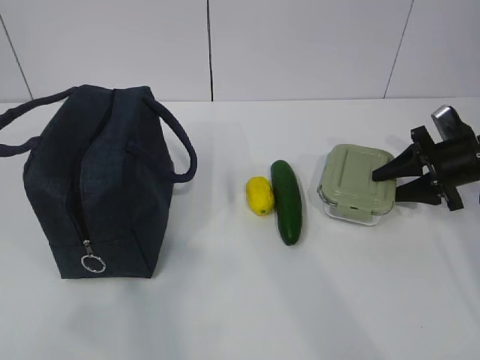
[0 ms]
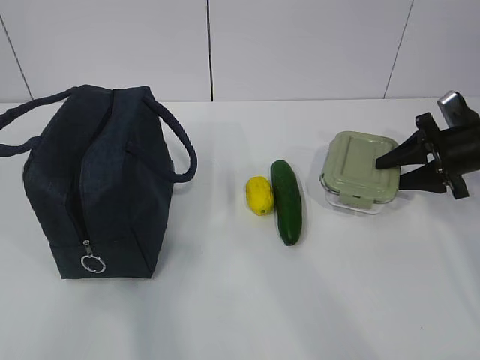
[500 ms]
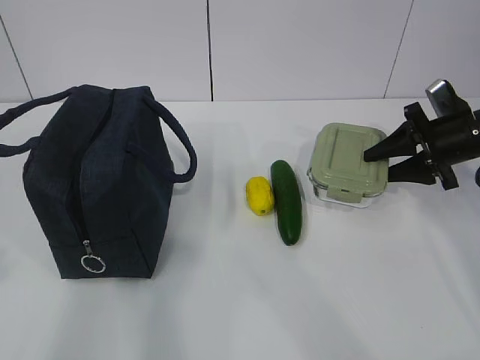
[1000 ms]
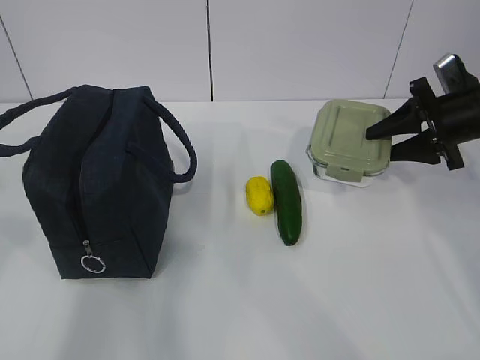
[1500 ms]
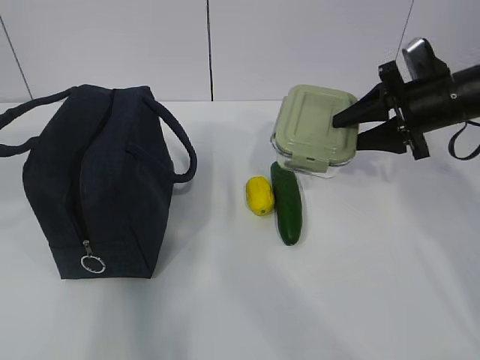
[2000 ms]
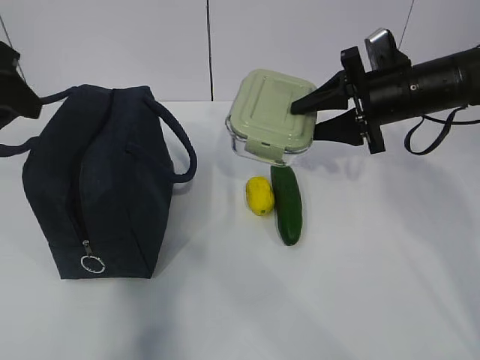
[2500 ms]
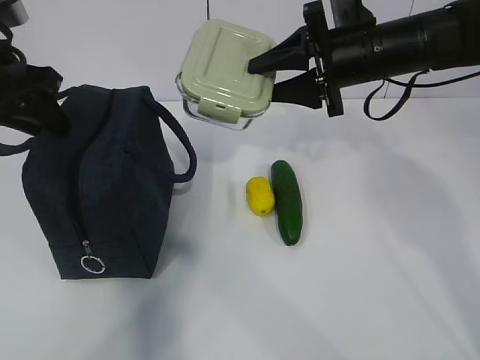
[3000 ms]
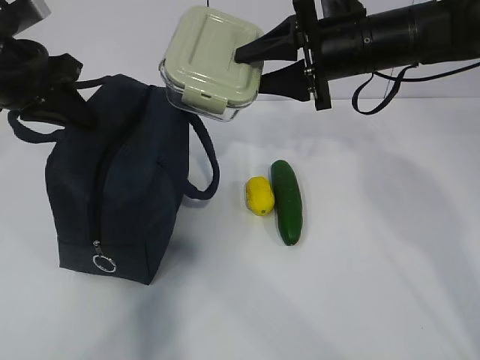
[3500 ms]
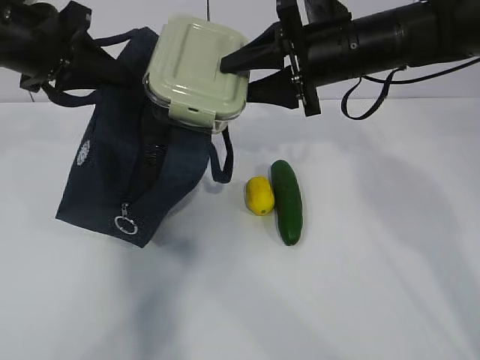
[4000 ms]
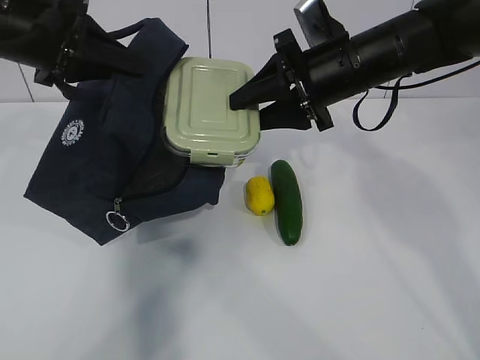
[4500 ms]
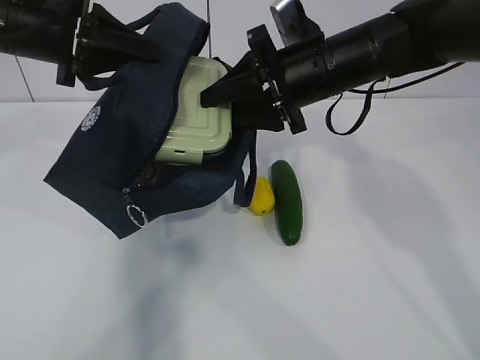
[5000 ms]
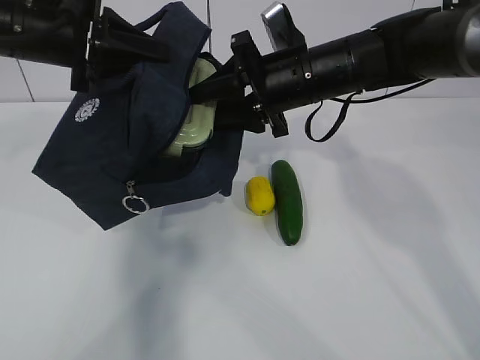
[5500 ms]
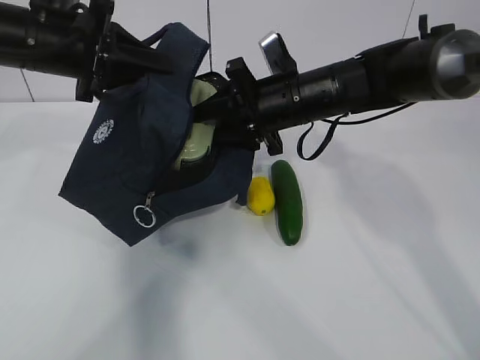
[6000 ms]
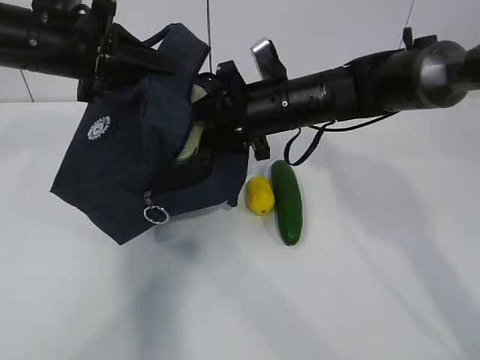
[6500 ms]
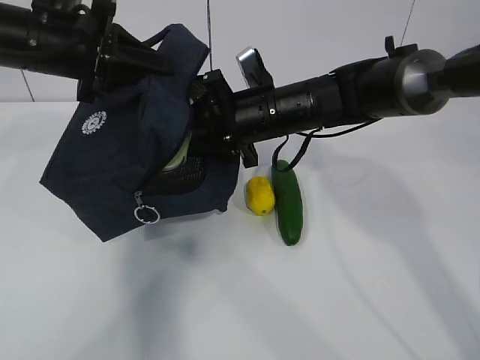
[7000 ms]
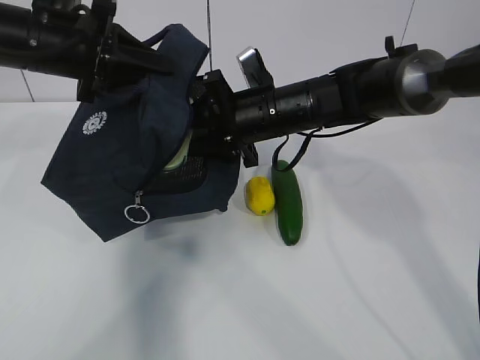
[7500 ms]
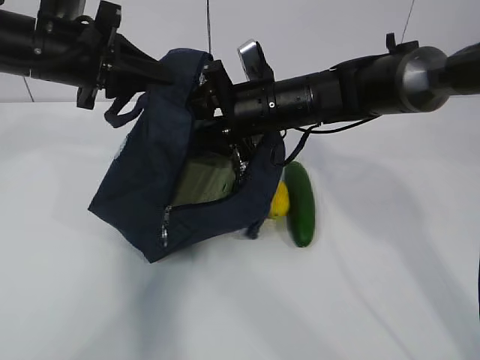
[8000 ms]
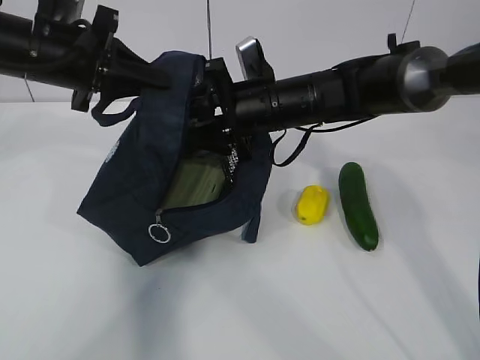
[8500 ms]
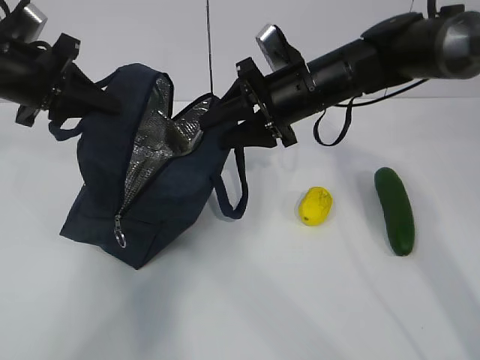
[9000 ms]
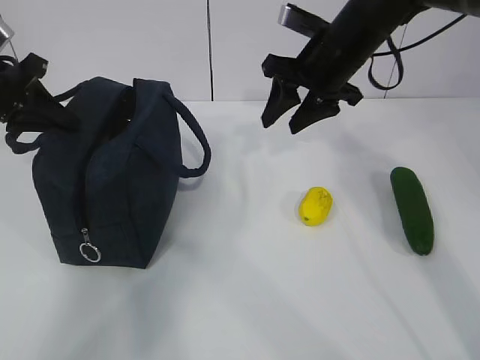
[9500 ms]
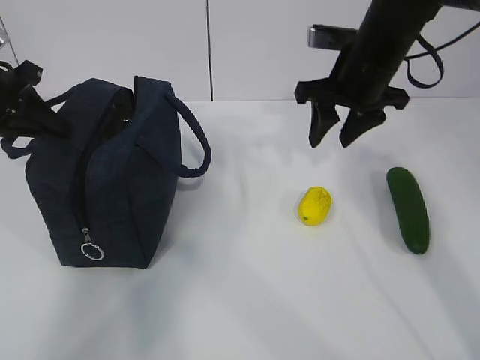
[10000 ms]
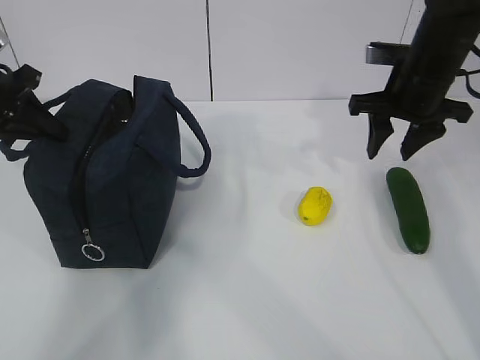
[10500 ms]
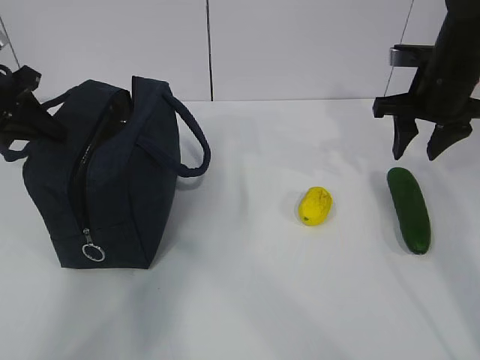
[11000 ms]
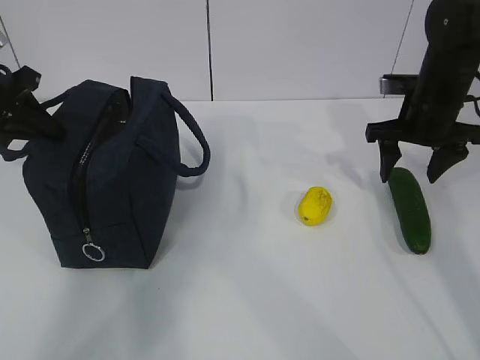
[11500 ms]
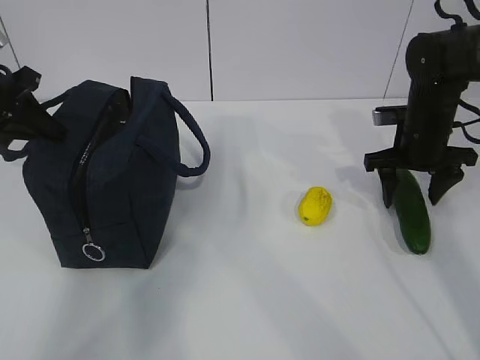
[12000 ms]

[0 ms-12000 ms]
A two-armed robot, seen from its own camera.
Step, 2000 ms to 5500 ms: Grab the cucumber with your right hand.
Step, 6000 ms to 8000 ms: Place it into the bag with your right hand.
0 ms to 2000 ms: The left gripper shifts roughly 20 cm forward; the right gripper travels upward and to the left by about 10 cm.
2000 ms to 4000 ms: The right gripper is displaced to the left and upward by roughly 15 cm. The left gripper heads forward, covering some 15 cm, and closes up.
4000 ms to 6000 ms: The right gripper heads downward, covering roughly 5 cm.
6000 ms to 8000 ms: The grippers move only a little.
8000 ms to 10000 ms: The left gripper heads to the left, covering some 10 cm. Meanwhile the right gripper is displaced to the right and upward by some 10 cm.
10000 ms to 12000 ms: The right gripper is displaced downward and to the right by approximately 15 cm.

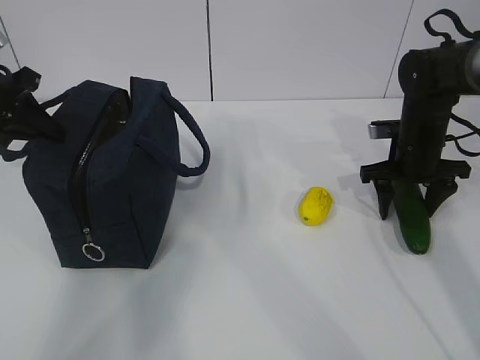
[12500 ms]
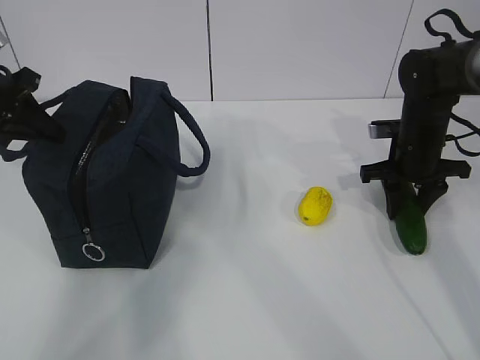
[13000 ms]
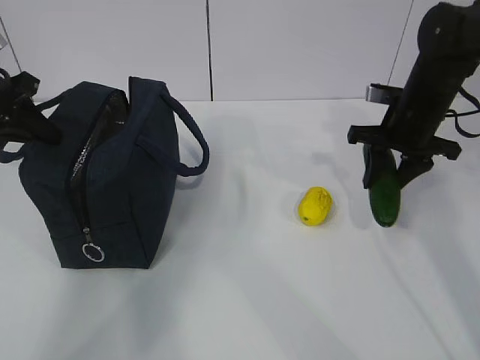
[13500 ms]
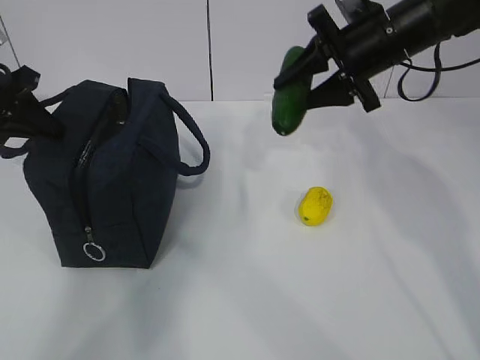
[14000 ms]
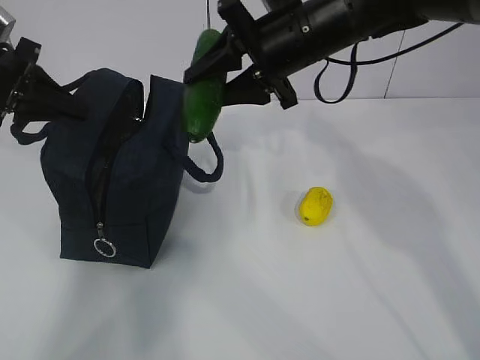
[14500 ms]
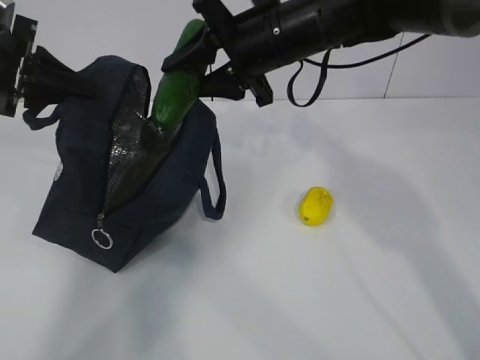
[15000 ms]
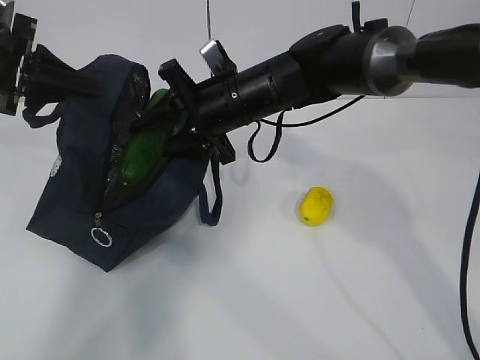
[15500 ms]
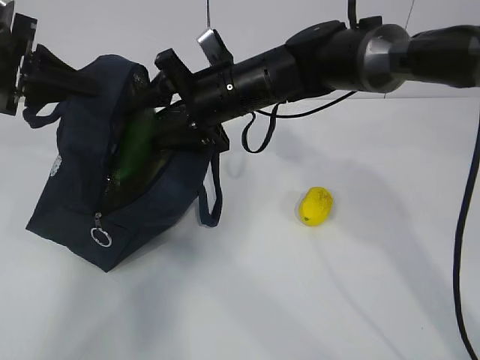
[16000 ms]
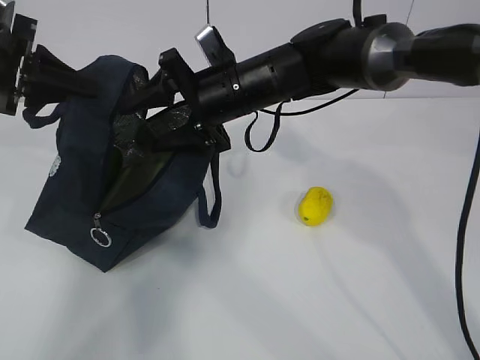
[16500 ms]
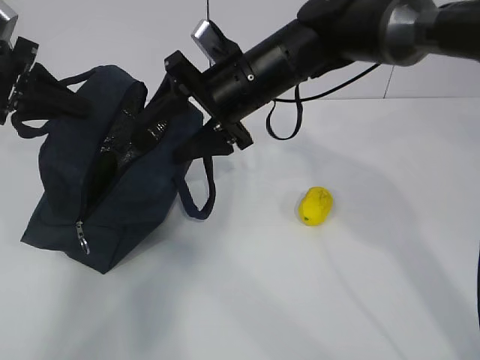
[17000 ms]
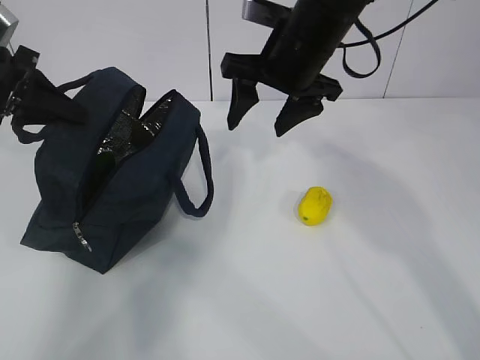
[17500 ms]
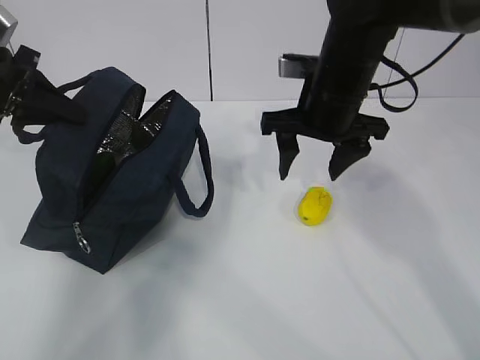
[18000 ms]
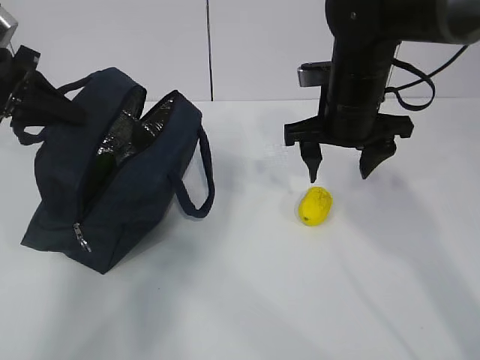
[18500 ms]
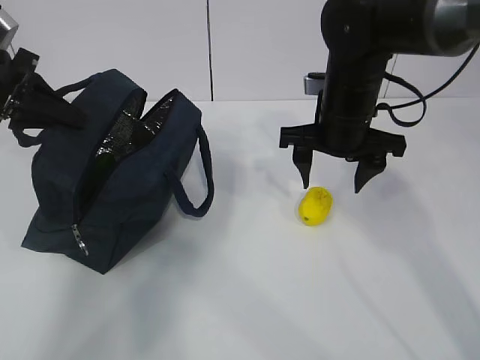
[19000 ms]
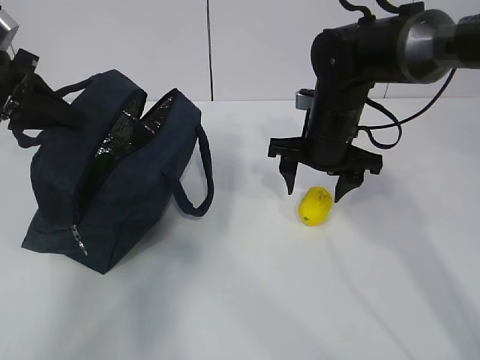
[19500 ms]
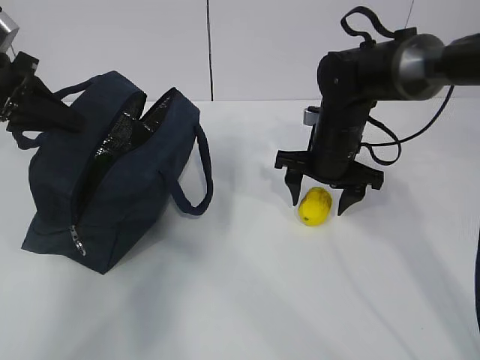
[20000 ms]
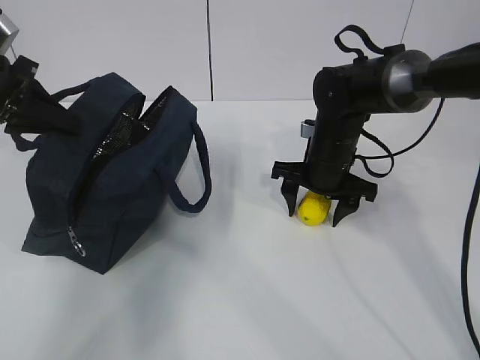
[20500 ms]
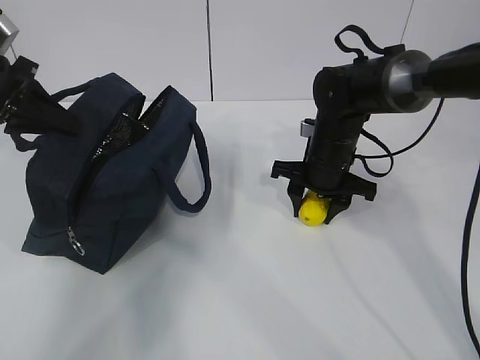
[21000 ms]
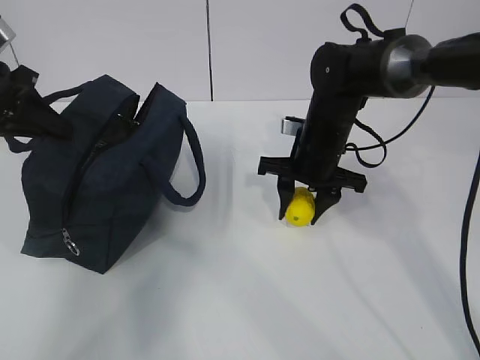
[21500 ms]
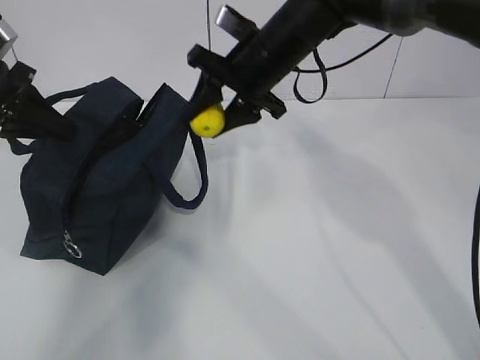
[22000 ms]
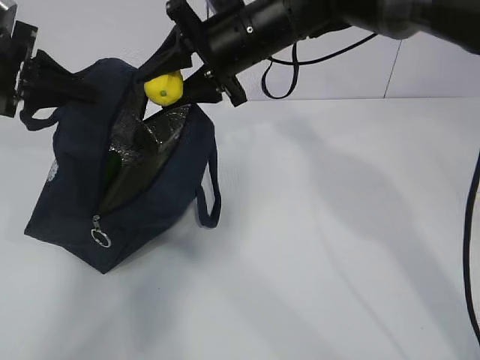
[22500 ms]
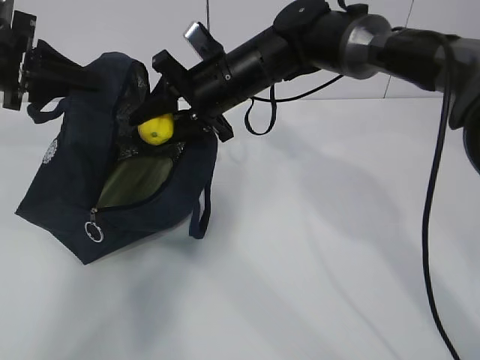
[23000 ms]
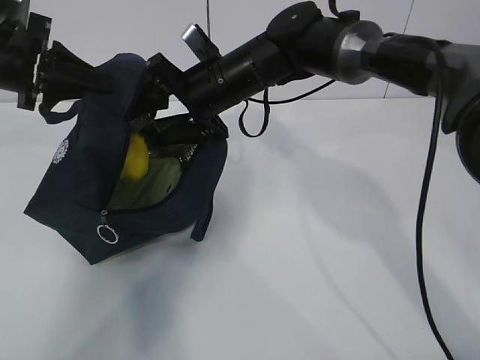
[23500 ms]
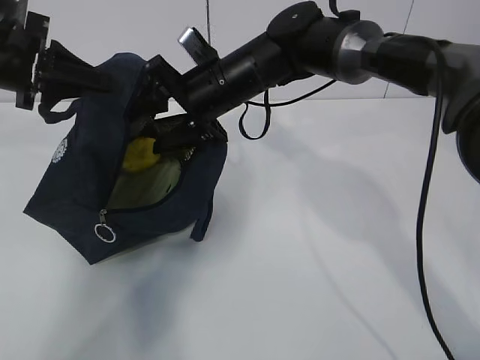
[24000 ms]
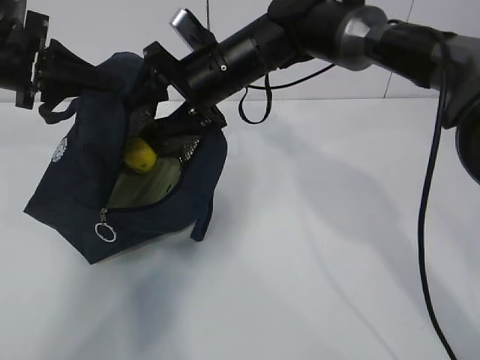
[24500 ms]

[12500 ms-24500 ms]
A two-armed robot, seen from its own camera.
Step, 15000 ms to 18000 ms: Grab the lunch bag with your right hand.
Step, 18500 ms to 20500 ms: Move the lunch bag to the right.
12500 ms to 14500 ms: The right gripper travels to the left and upward by about 25 cm, and closes.
14500 ms to 16500 ms: The right gripper goes about 10 cm to the left and downward, and opens.
16500 ms to 18500 ms: The right gripper goes about 10 cm to the right.
18500 ms to 20500 ms: The right gripper goes some 10 cm downward.
20500 ms to 22500 ms: The right gripper moves upward and to the left, some 20 cm, and closes up.
22500 ms to 24500 ms: The right gripper moves approximately 5 cm.

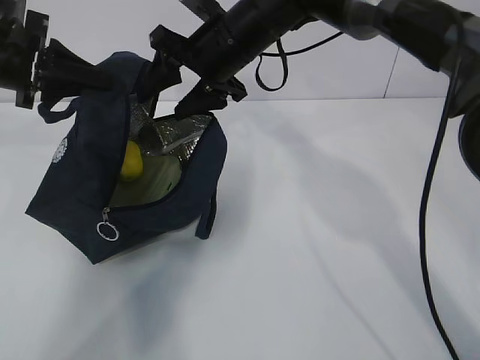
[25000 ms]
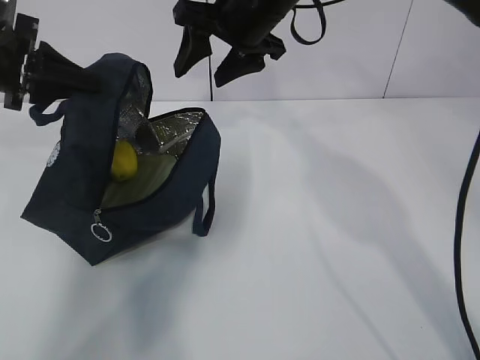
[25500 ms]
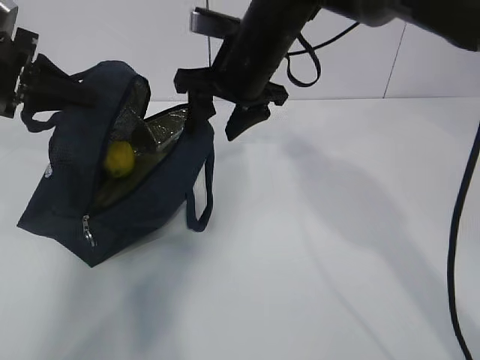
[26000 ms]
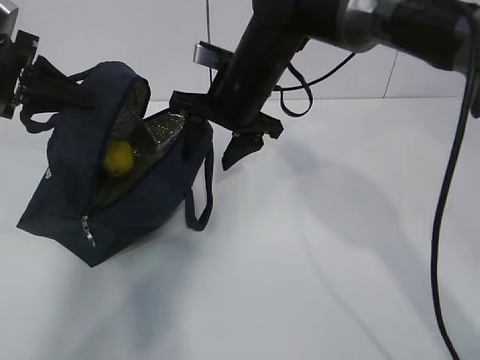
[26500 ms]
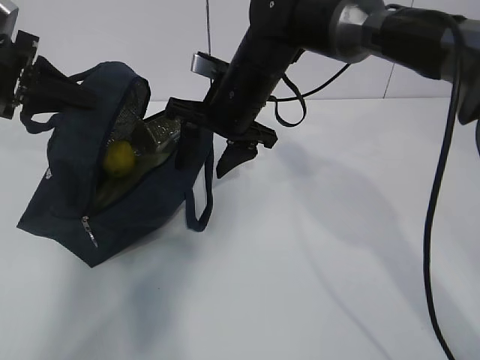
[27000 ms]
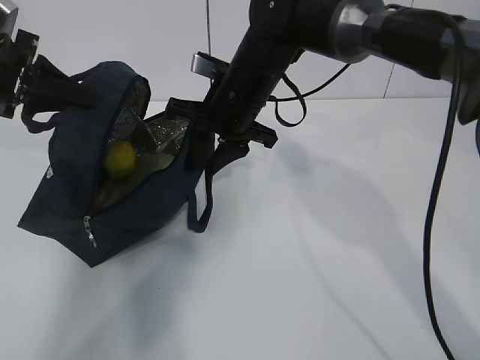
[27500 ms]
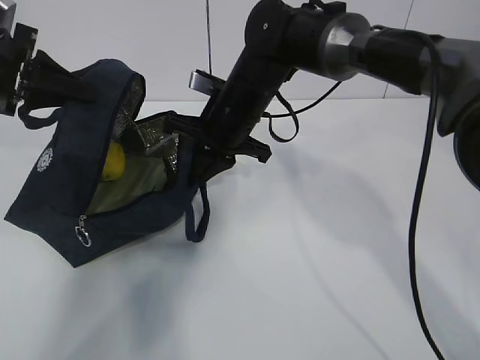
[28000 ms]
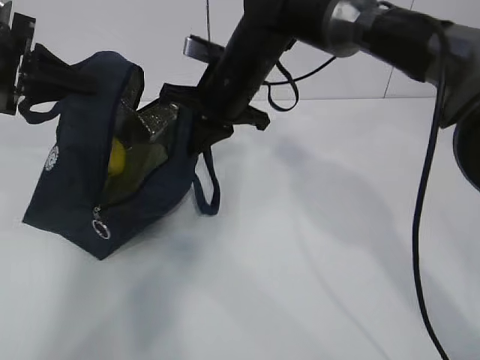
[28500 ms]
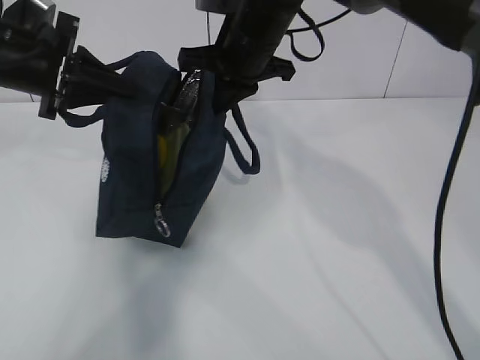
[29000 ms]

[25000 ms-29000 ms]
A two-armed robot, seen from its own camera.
25000 ms to 27000 ms: The right gripper moves about 5 cm.
27000 ms to 29000 ms: The right gripper is displaced upward by about 5 cm, and closes.
